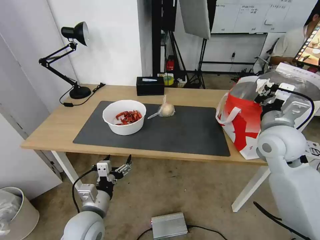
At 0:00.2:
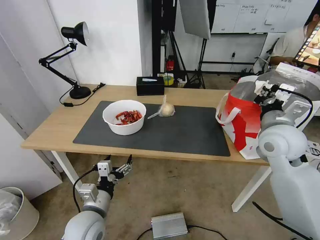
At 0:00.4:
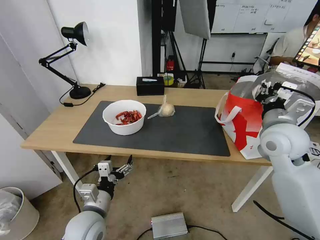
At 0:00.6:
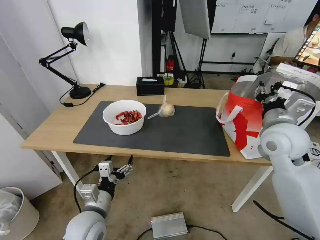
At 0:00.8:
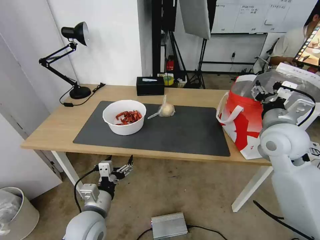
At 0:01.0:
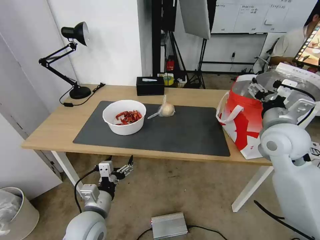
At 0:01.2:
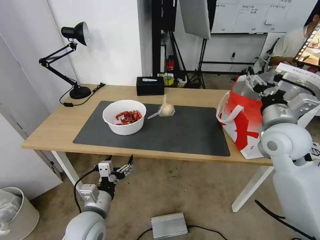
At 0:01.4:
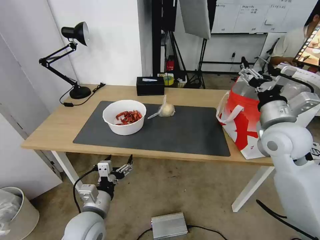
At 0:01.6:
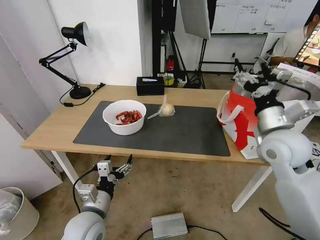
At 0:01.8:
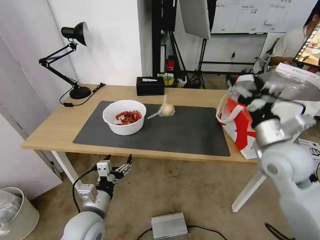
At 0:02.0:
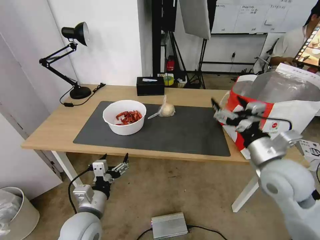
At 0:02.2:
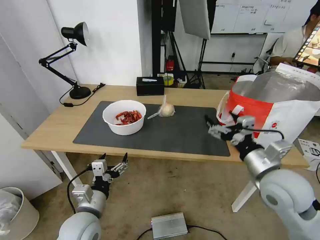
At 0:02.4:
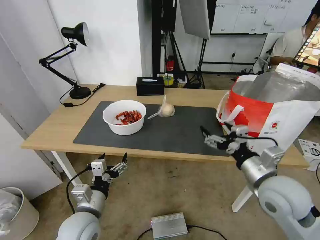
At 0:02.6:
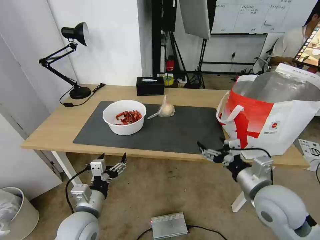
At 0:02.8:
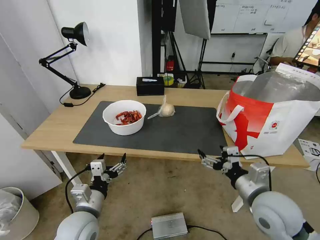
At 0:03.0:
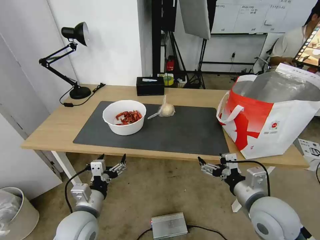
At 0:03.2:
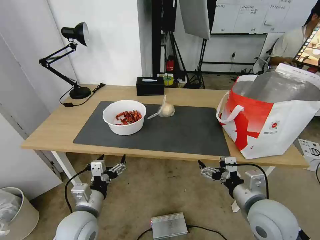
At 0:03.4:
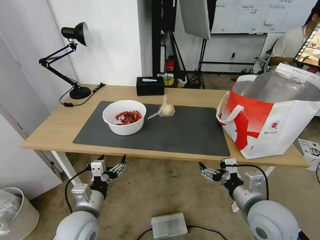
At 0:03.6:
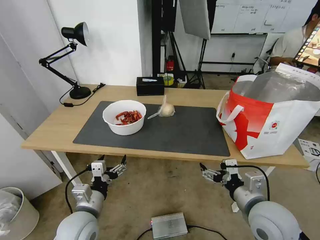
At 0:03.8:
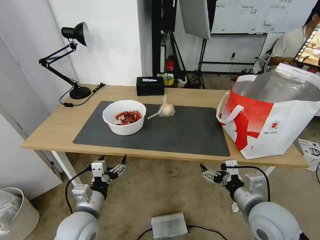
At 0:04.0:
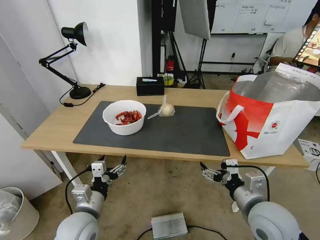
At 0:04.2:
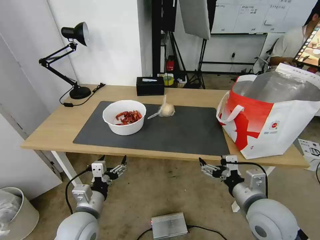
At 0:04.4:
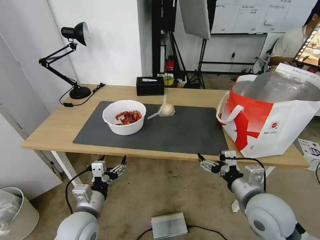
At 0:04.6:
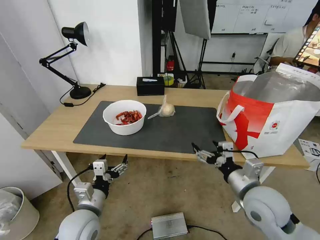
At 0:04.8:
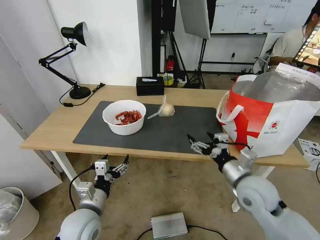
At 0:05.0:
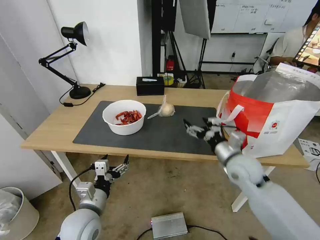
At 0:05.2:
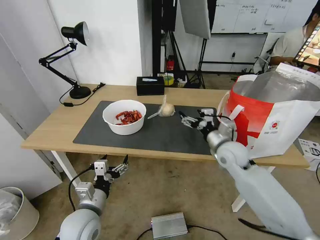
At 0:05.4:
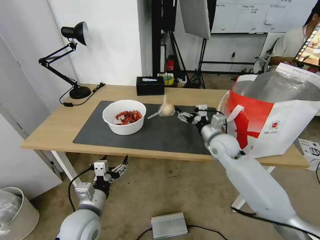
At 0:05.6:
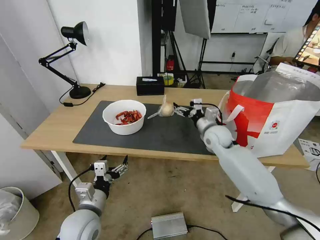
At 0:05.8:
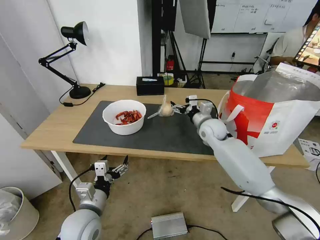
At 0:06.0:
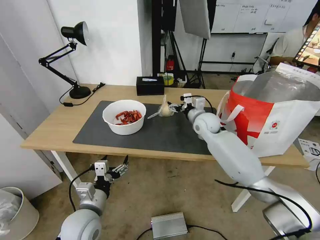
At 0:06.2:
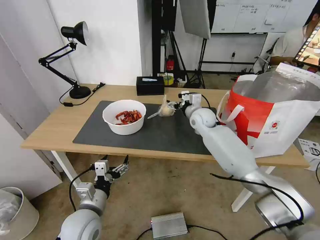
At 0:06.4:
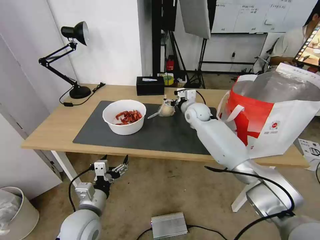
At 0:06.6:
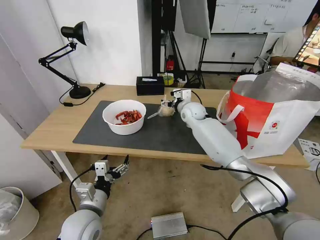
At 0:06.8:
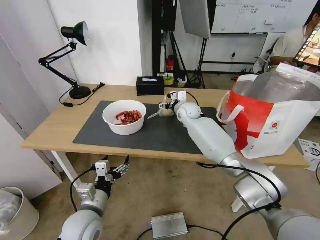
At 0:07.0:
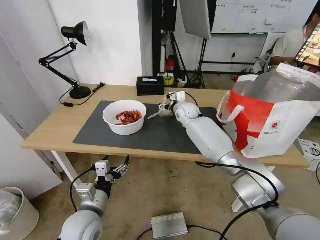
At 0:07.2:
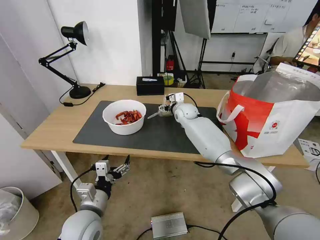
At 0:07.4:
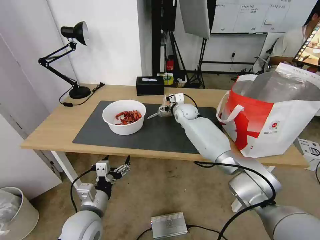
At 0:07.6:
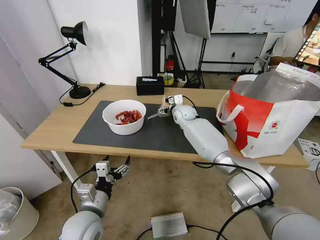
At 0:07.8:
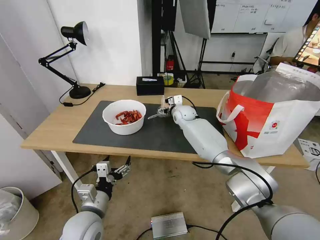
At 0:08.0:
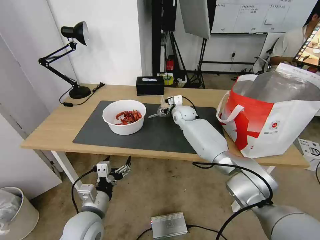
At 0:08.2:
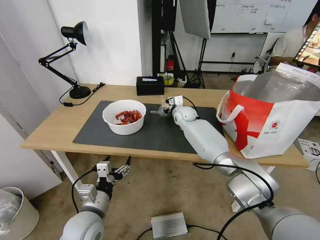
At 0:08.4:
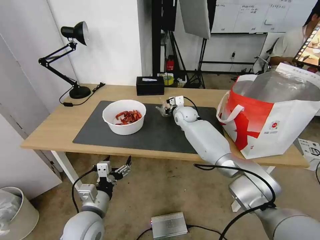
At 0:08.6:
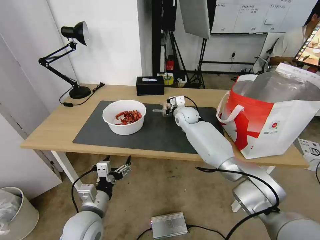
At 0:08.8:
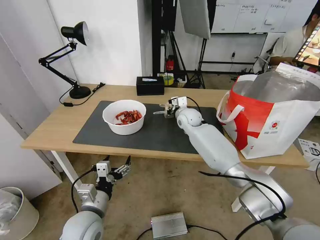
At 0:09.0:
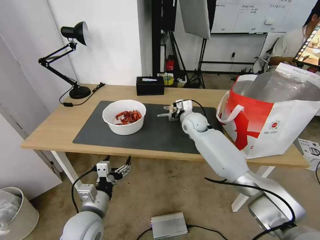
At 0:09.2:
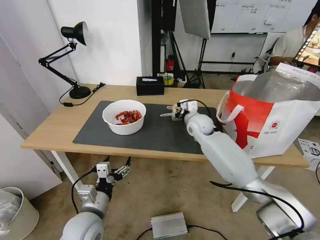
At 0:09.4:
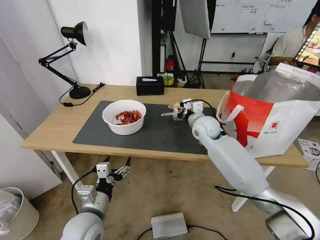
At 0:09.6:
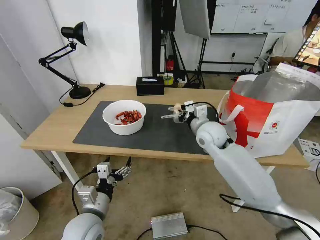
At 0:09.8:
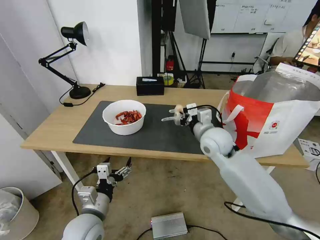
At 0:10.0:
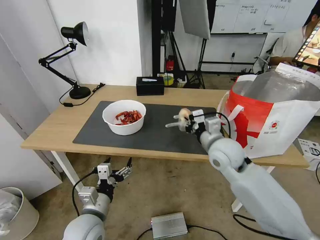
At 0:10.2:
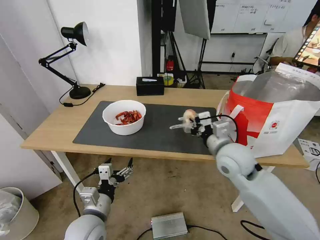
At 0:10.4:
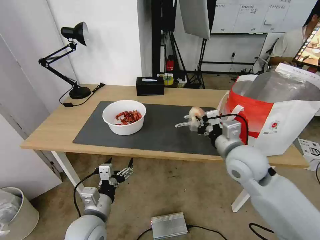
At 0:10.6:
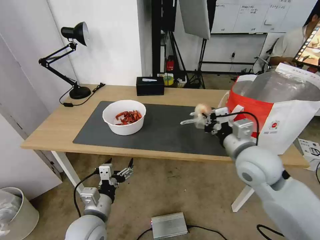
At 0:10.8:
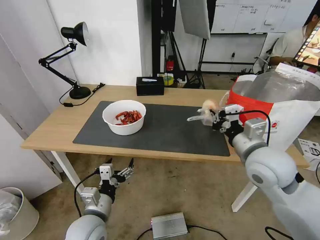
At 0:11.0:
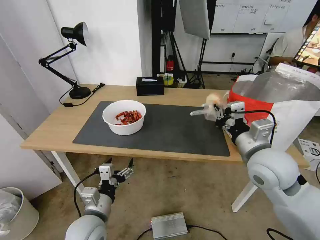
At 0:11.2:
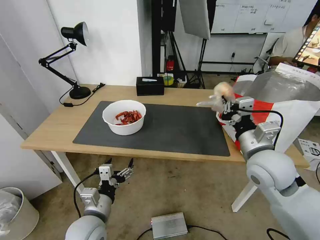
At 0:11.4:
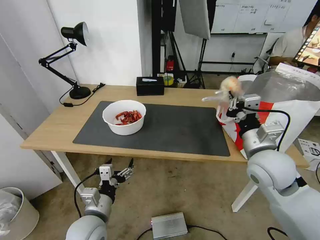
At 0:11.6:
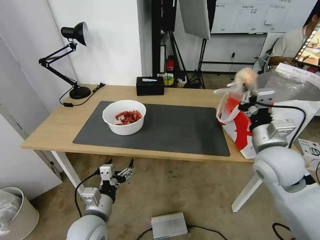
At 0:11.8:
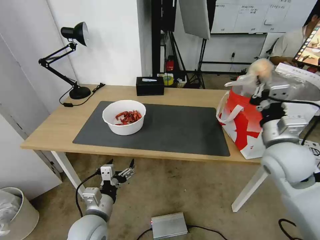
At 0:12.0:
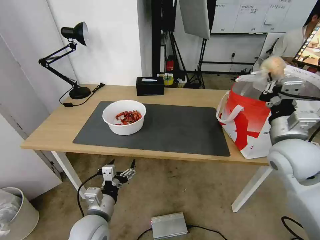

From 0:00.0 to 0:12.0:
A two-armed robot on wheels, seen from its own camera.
Task of the whole recording: Pick up the trash from the table and place it into the takeout bag.
From 0:00.0 to 0:01.6: The right gripper opens.
From 0:01.6 to 0:03.0: The right gripper travels backward and downward by some 15 cm.
From 0:03.0 to 0:04.4: The grippers move only a little.
From 0:04.4 to 0:06.0: The right gripper travels forward by roughly 30 cm.
From 0:06.0 to 0:07.6: The right gripper travels forward and to the left by roughly 10 cm.
From 0:07.6 to 0:09.0: The right gripper travels backward by about 5 cm, and closes its fingers.
From 0:09.0 to 0:10.4: The right gripper shifts roughly 25 cm backward.
From 0:10.4 to 0:12.0: The right gripper heads to the right, covering about 10 cm.

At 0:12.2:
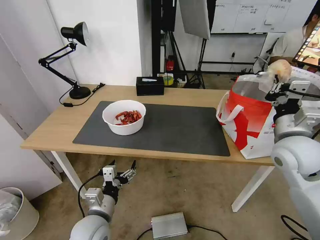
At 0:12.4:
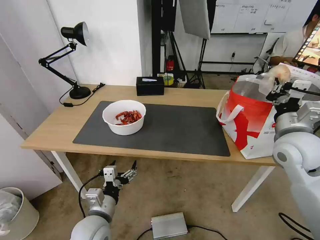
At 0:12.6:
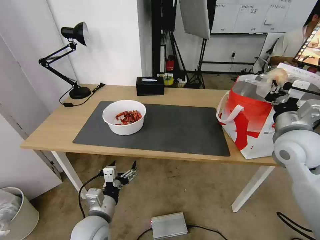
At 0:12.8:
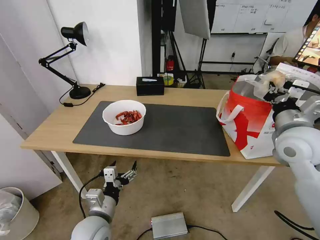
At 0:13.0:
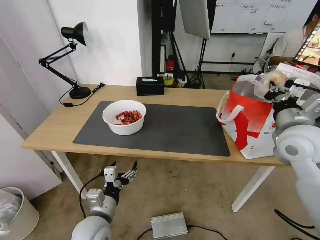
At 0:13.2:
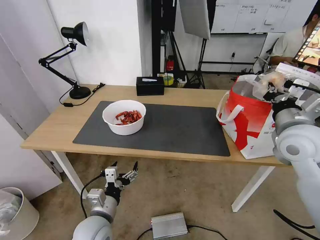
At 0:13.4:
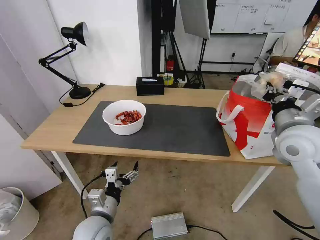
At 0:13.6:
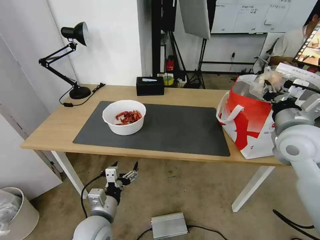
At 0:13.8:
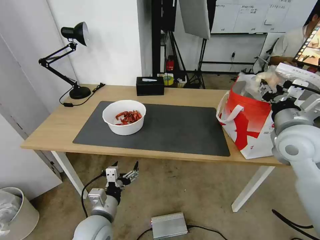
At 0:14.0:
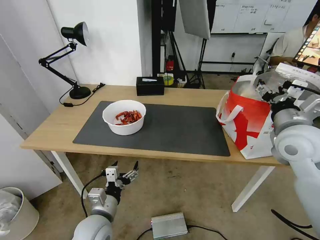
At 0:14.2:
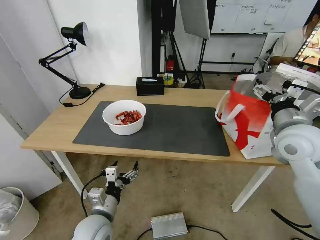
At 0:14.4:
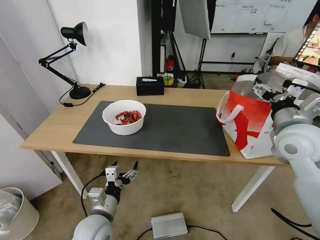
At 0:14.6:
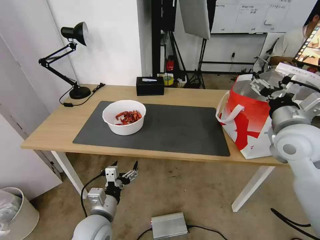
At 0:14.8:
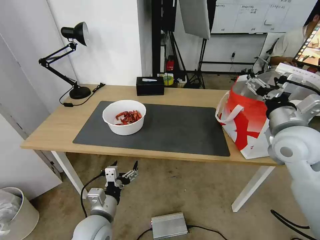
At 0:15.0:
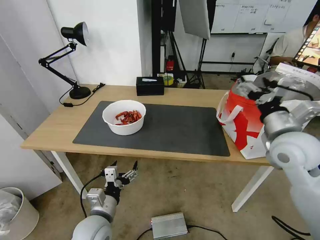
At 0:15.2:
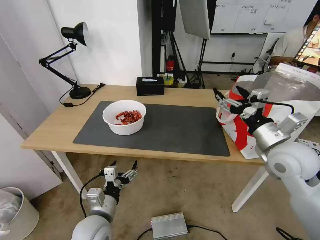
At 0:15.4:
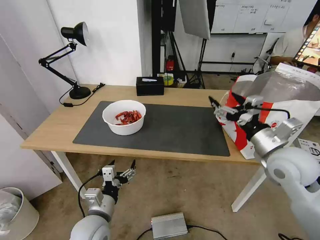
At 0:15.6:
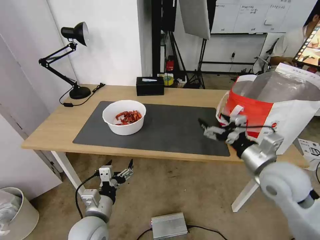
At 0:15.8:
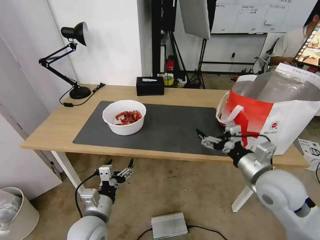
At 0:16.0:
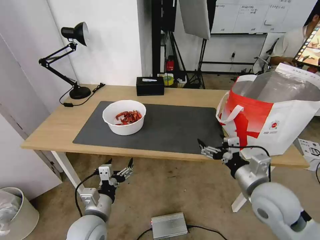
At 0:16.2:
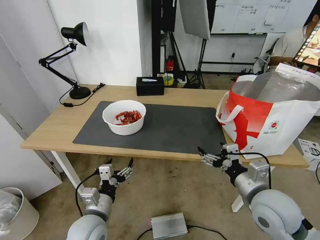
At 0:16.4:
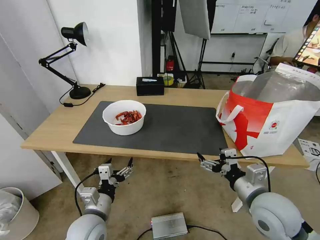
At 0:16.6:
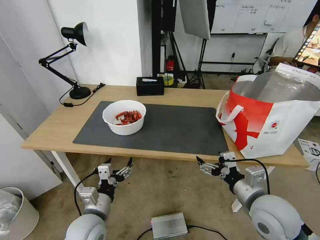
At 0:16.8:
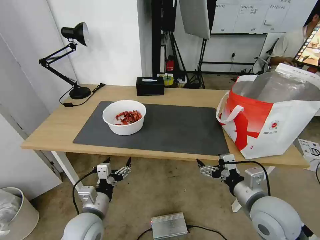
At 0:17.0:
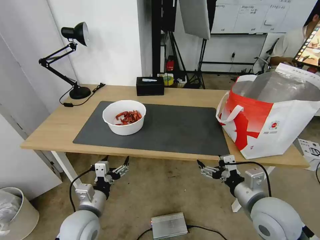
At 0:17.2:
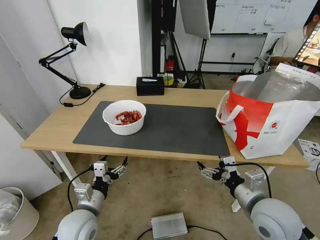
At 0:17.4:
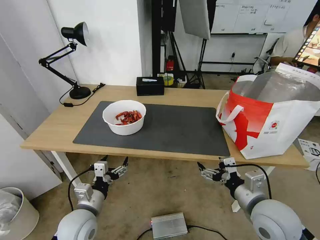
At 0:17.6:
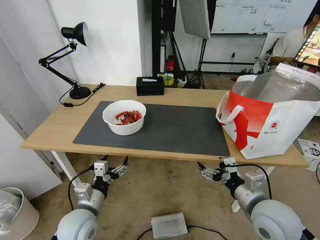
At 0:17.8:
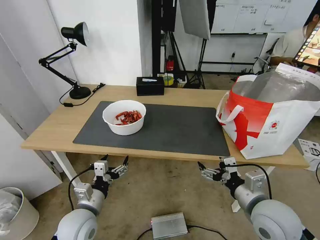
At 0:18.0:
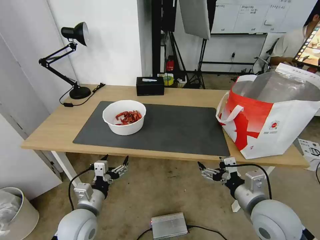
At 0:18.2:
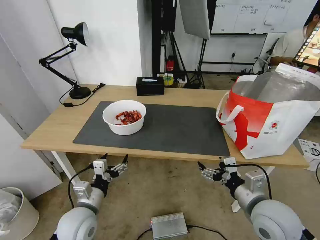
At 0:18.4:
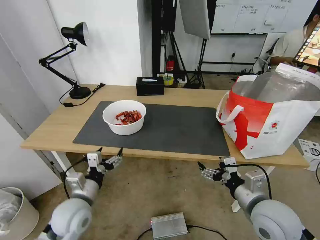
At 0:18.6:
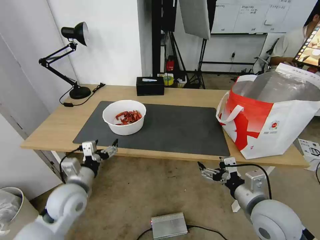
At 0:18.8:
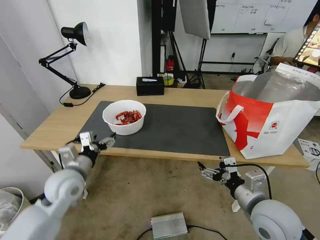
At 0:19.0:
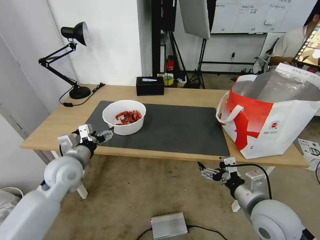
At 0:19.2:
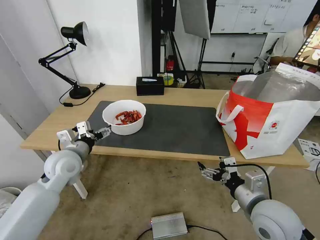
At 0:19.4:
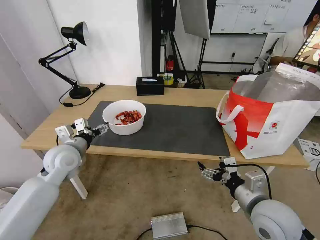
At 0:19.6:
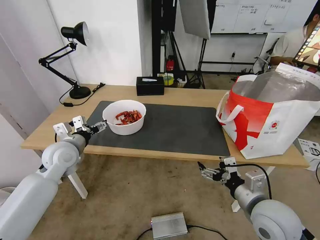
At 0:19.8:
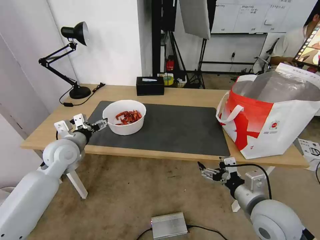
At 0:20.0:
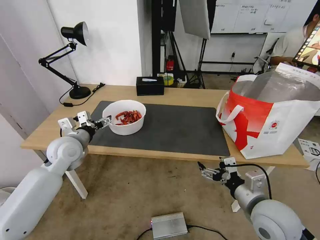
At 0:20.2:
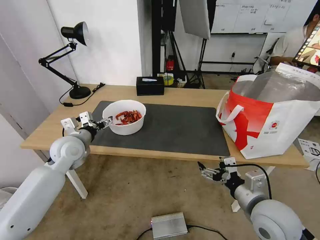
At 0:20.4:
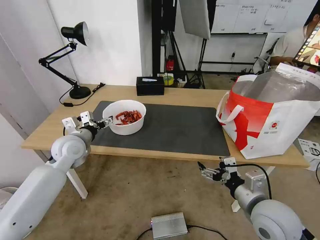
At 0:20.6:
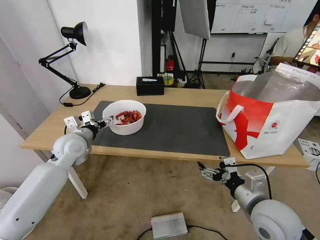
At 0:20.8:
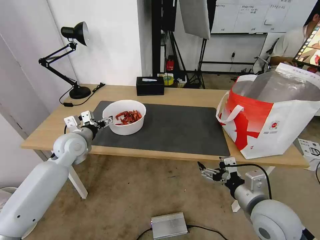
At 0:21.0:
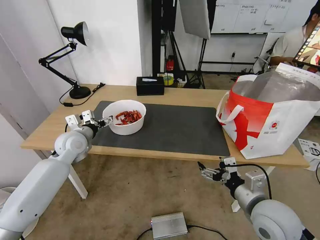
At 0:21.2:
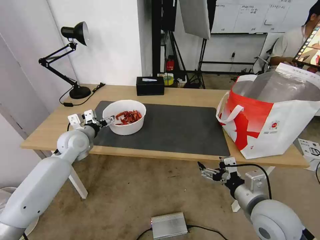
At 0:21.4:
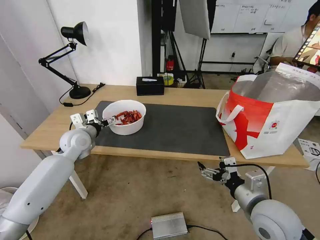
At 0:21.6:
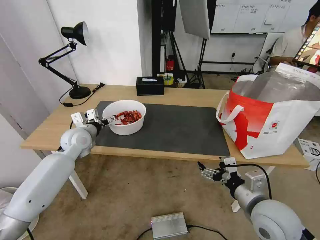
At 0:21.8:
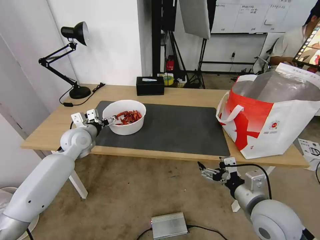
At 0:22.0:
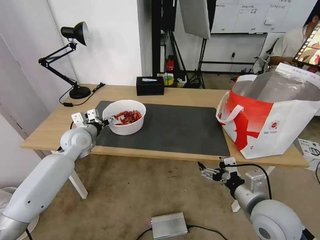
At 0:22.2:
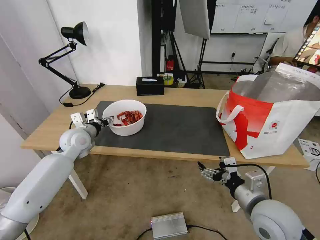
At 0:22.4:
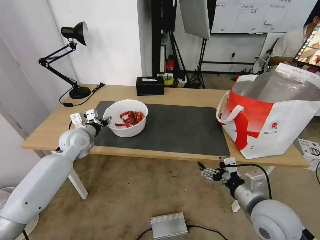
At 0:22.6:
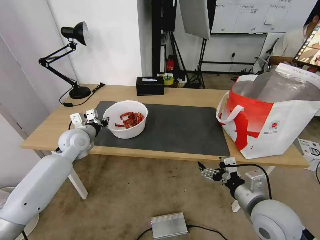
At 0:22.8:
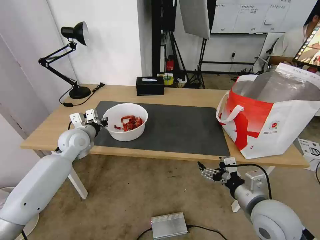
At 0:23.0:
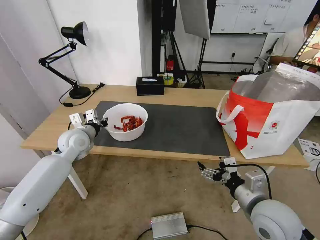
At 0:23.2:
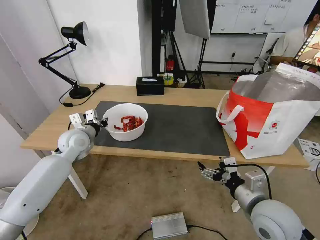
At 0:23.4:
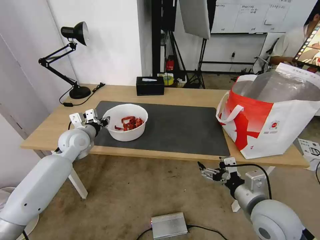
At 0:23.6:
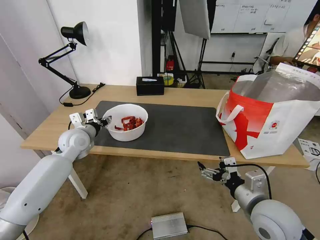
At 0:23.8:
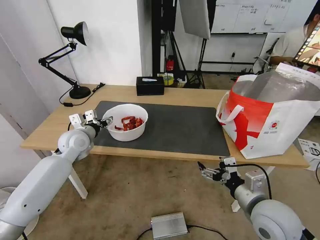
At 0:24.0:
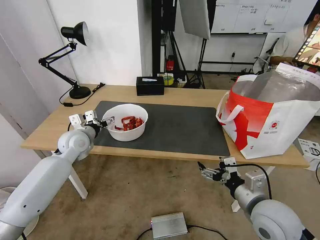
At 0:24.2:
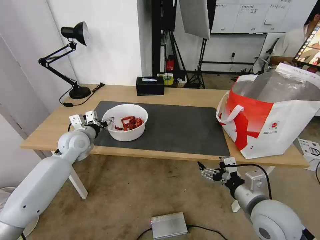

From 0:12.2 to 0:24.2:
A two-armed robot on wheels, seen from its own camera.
Task of the whole recording: Pick up the trash from the table and place it into the takeout bag.
From 0:12.2 to 0:13.8: The right gripper opens its fingers.
From 0:13.8 to 0:15.2: The right gripper opens up.
From 0:15.2 to 0:16.6: The right gripper is displaced backward, downward and to the left by about 15 cm.
From 0:16.6 to 0:18.2: There are only small adjustments of the grippers.
From 0:18.2 to 0:19.8: The left gripper is displaced forward, upward and to the left by approximately 20 cm.
From 0:19.8 to 0:21.2: The left gripper moves forward, some 5 cm.
From 0:21.2 to 0:22.6: The left gripper closes.
From 0:22.6 to 0:24.2: The left gripper opens up.
